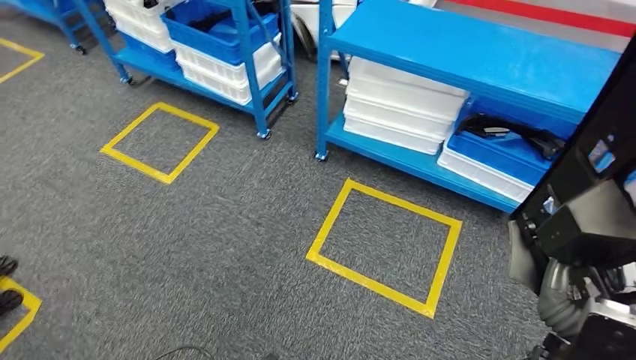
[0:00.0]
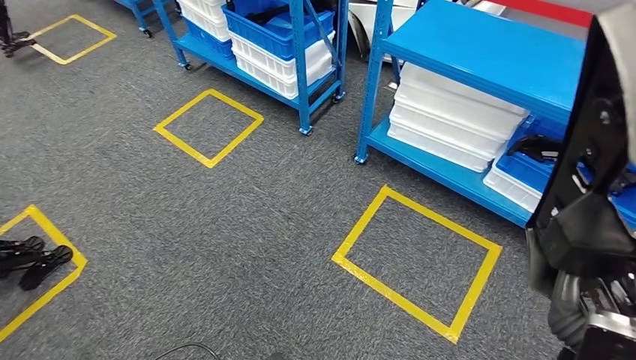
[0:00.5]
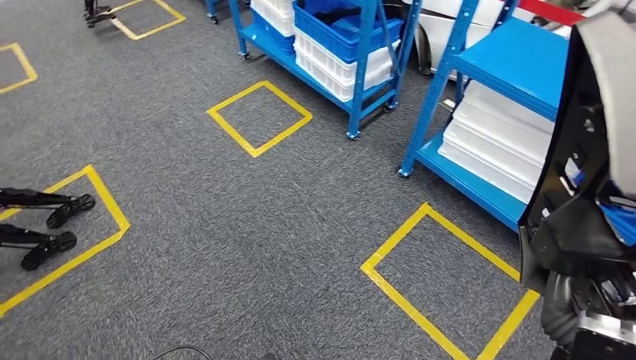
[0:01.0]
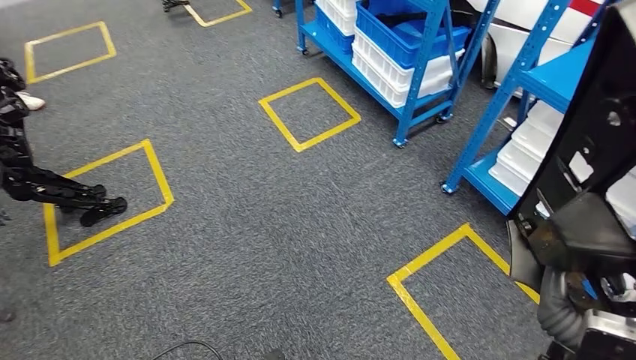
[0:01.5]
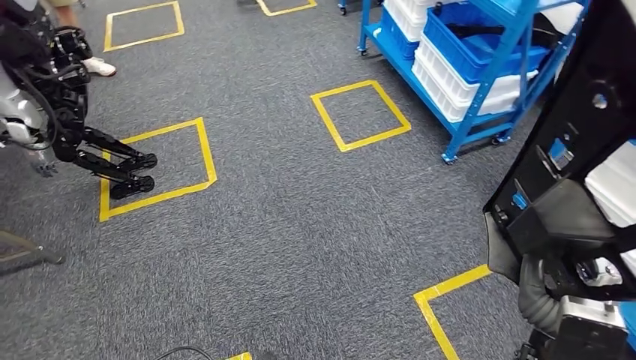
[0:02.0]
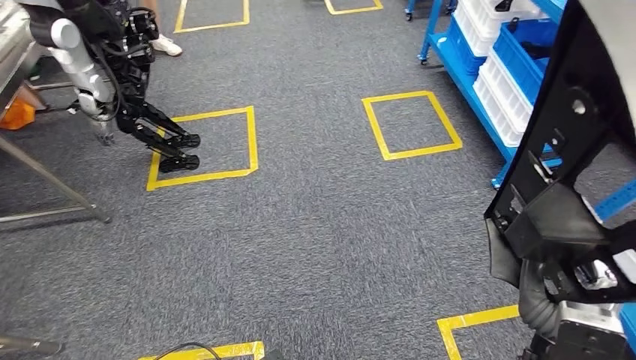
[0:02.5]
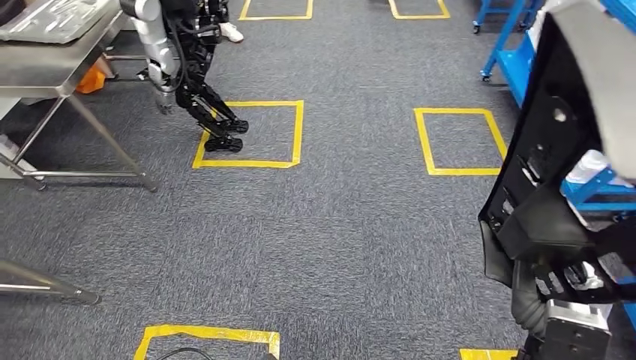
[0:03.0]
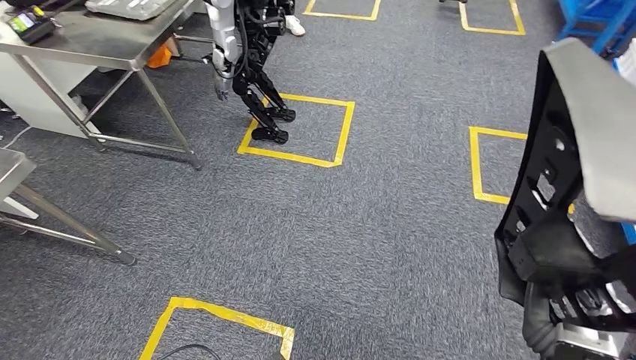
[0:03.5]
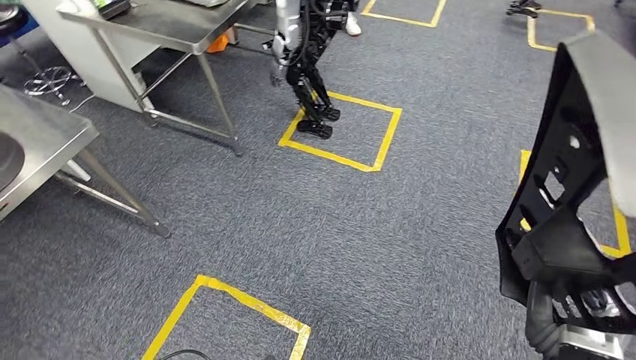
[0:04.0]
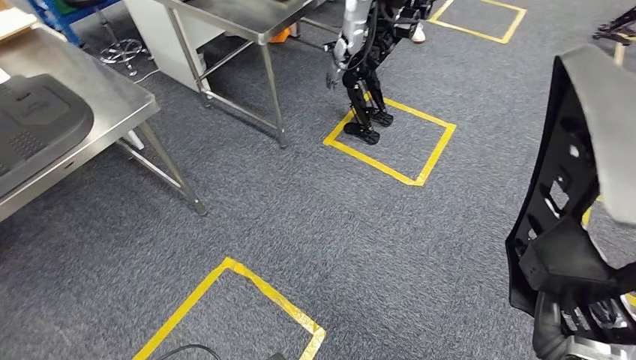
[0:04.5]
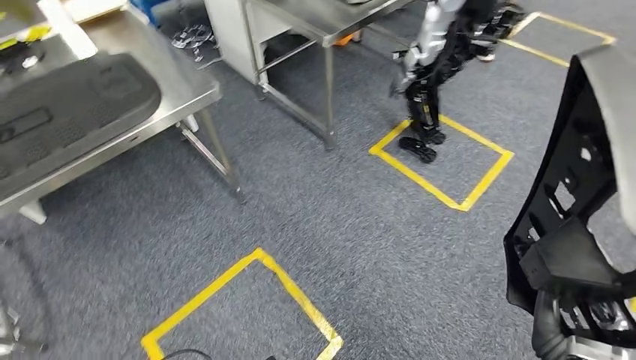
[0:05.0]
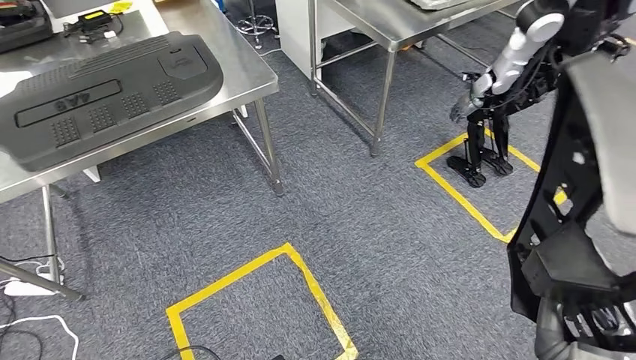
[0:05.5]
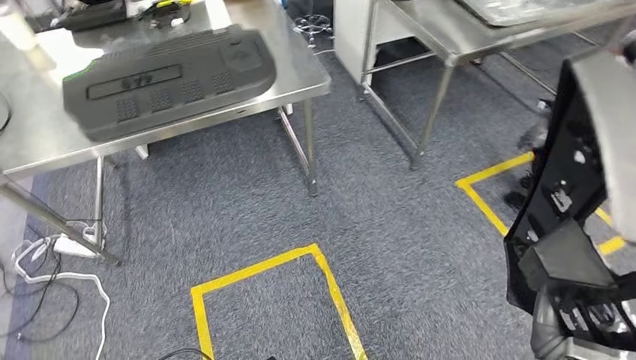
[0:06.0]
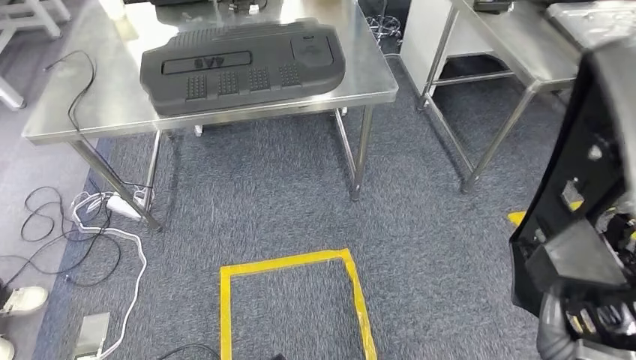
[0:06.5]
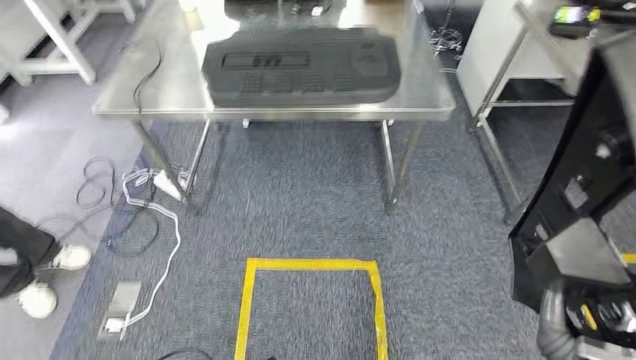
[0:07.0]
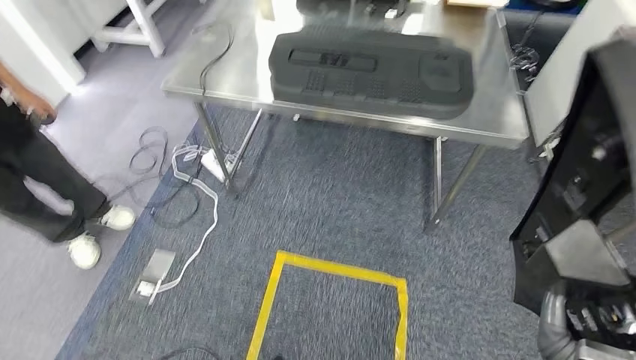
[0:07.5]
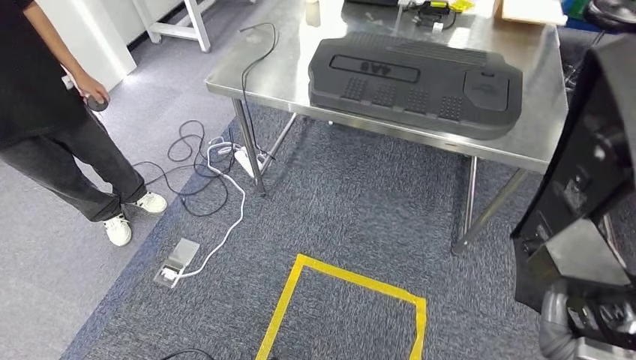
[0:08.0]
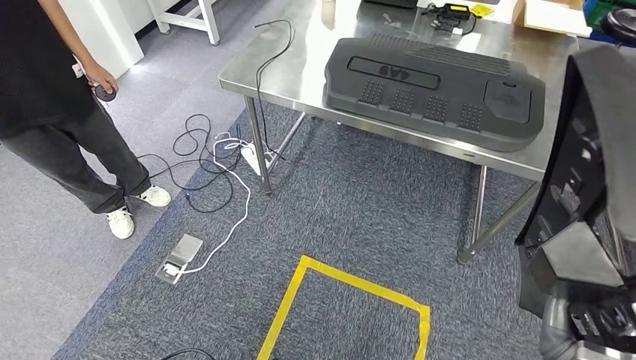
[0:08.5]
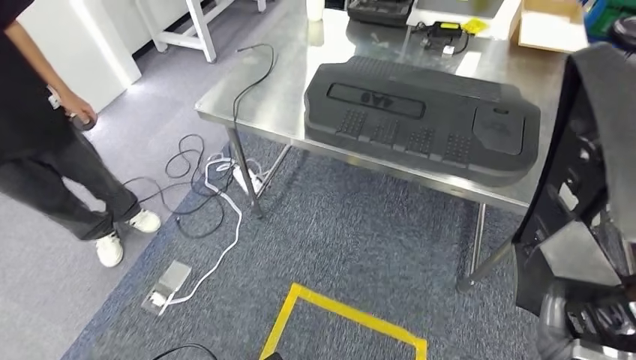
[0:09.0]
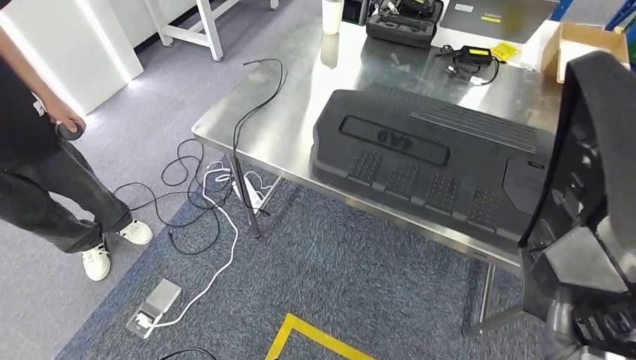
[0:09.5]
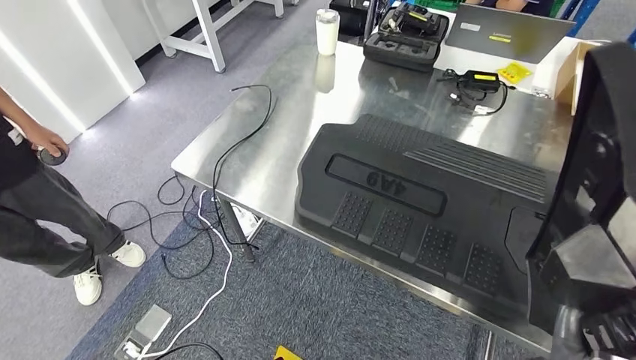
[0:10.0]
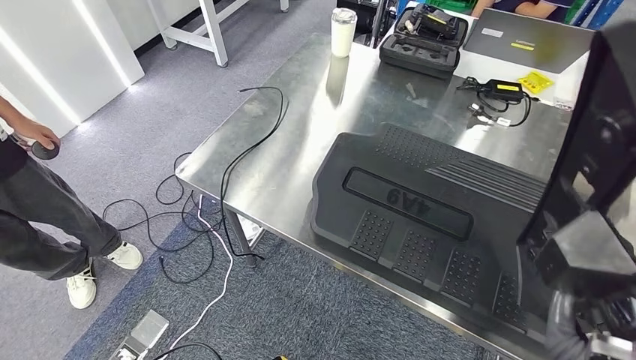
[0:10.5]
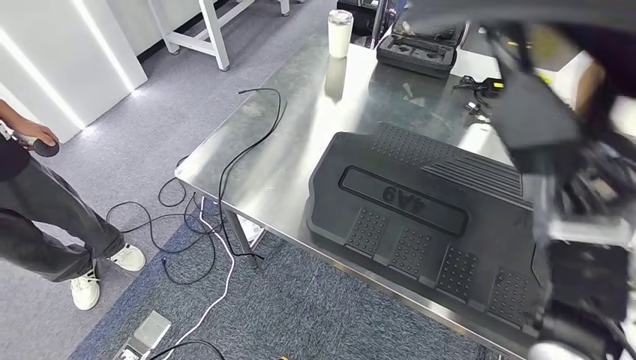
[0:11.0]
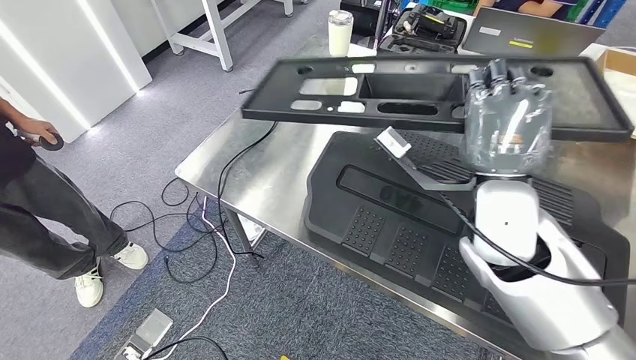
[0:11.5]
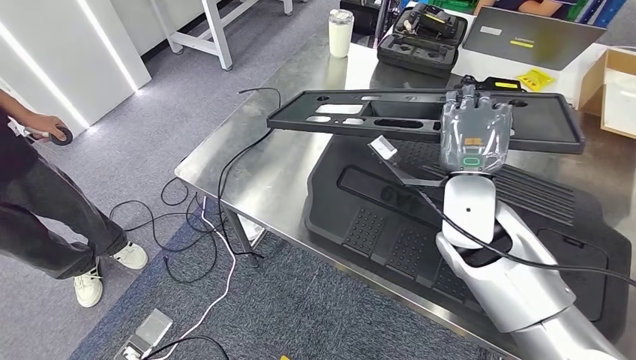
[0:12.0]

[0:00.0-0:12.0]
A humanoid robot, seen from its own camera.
Step, 0:00.0 to 0:09.5: Move the large material to the workbench.

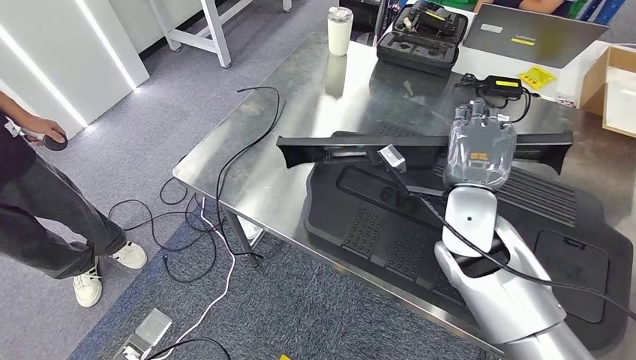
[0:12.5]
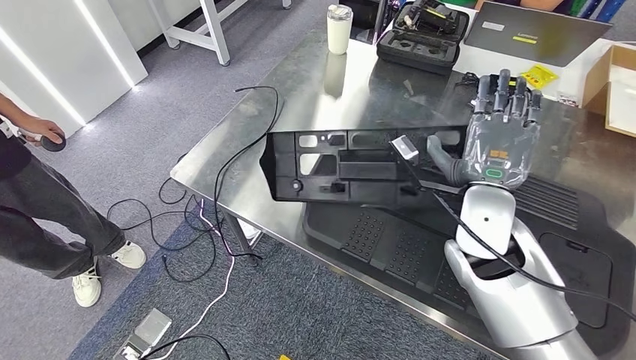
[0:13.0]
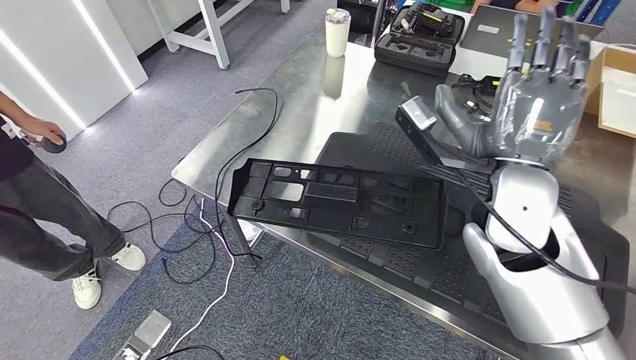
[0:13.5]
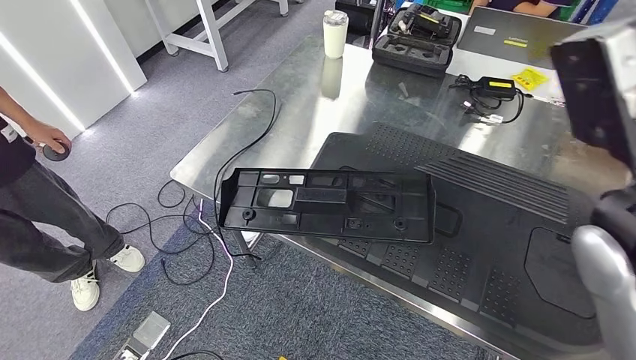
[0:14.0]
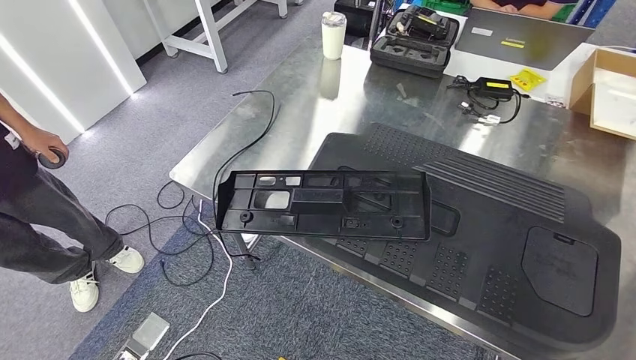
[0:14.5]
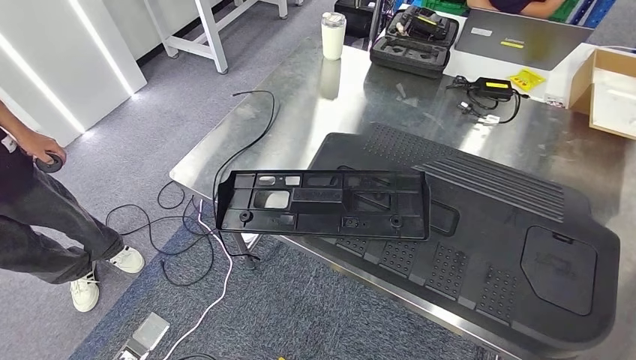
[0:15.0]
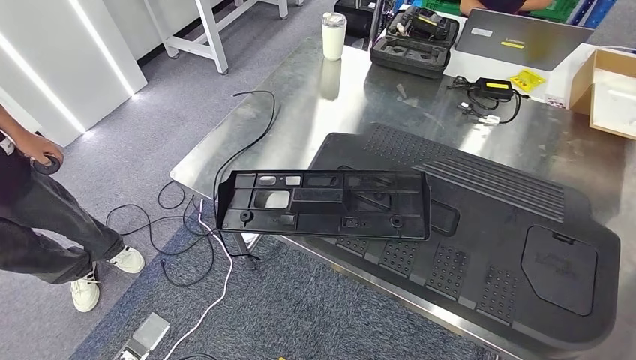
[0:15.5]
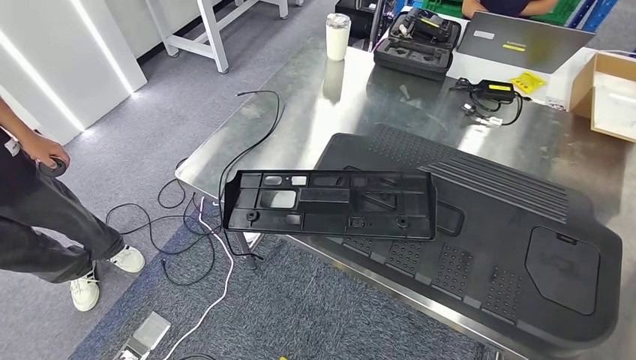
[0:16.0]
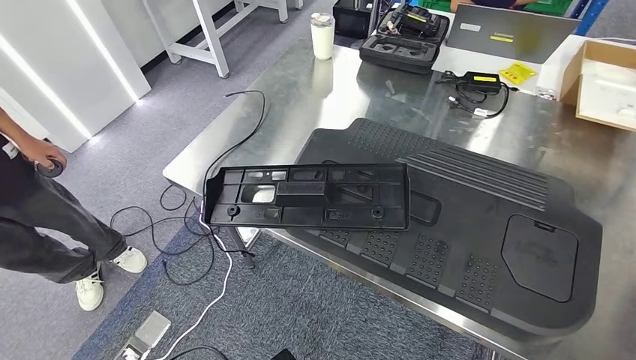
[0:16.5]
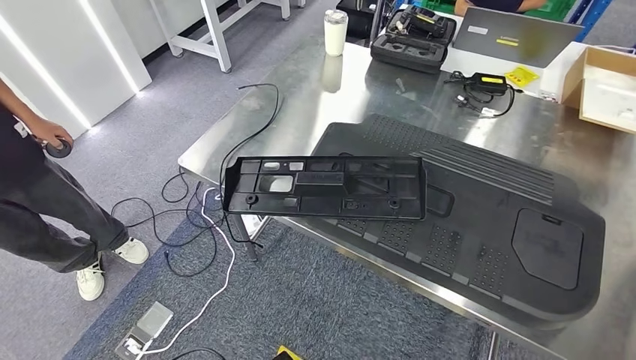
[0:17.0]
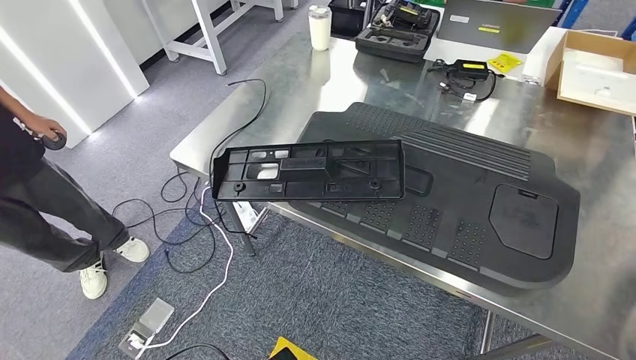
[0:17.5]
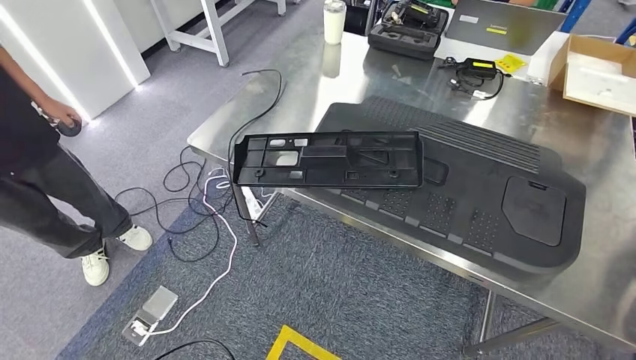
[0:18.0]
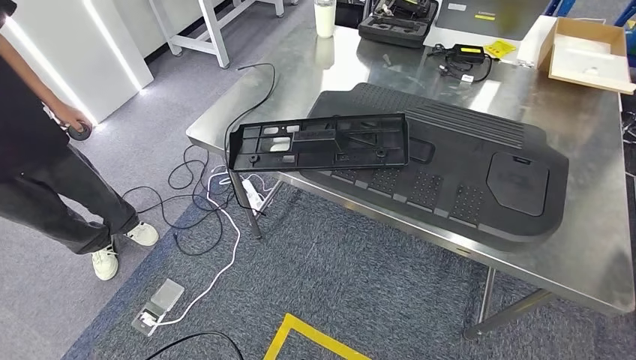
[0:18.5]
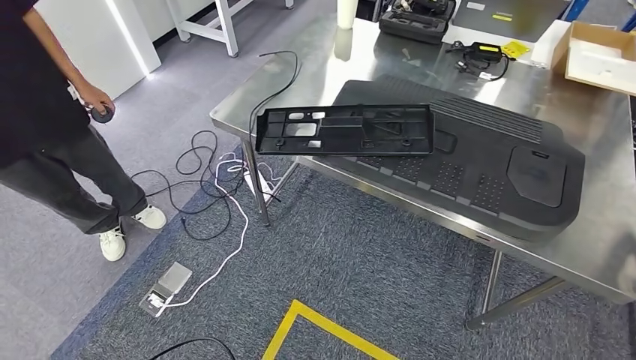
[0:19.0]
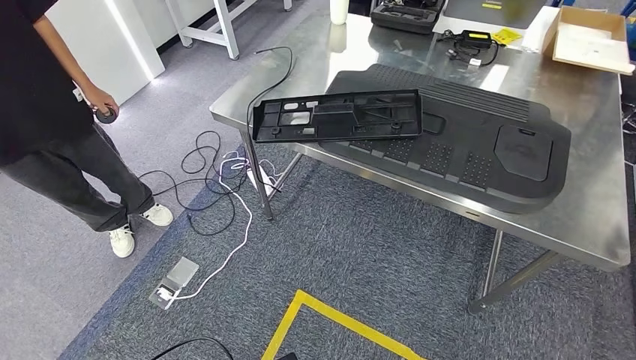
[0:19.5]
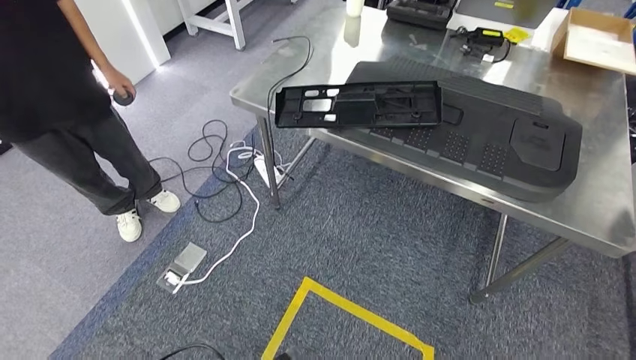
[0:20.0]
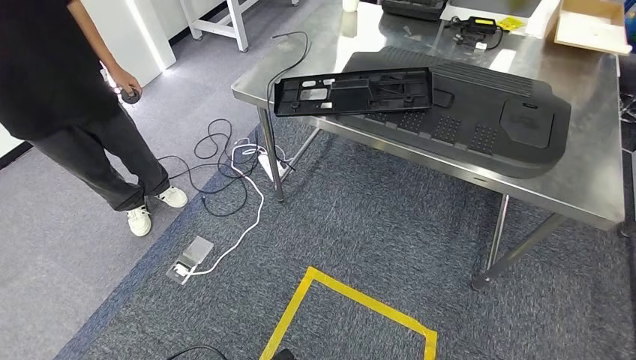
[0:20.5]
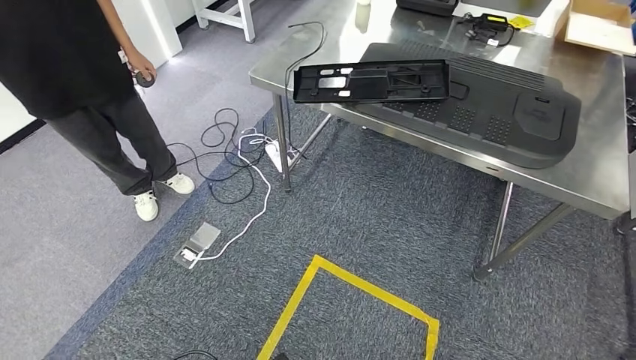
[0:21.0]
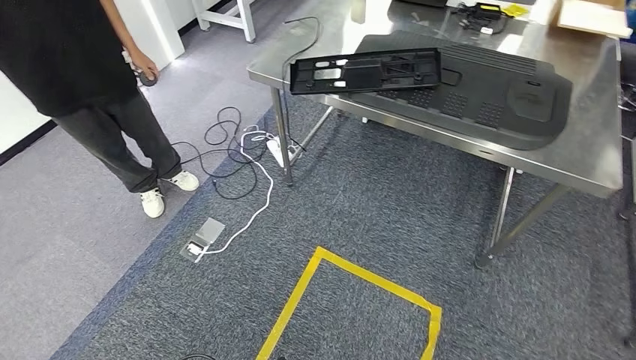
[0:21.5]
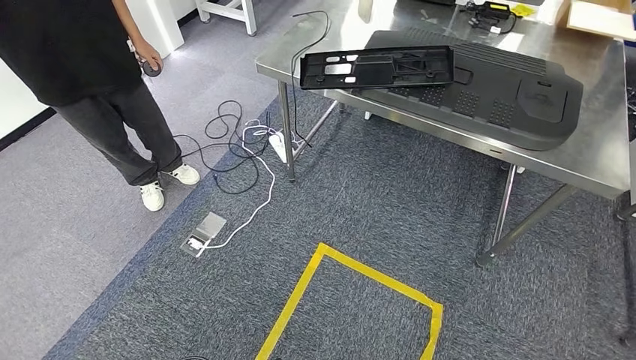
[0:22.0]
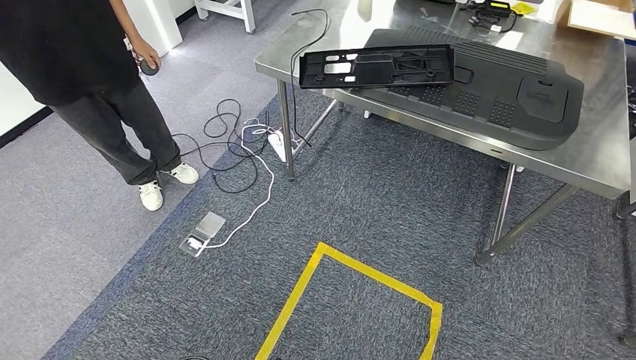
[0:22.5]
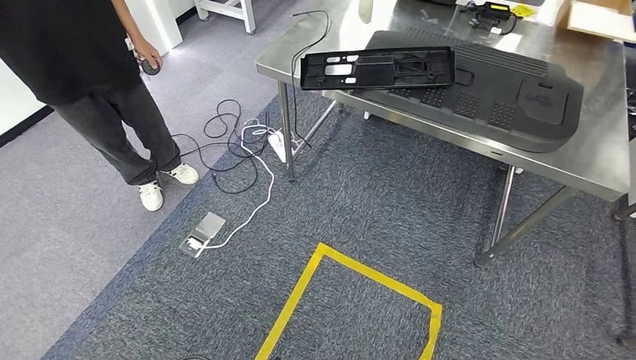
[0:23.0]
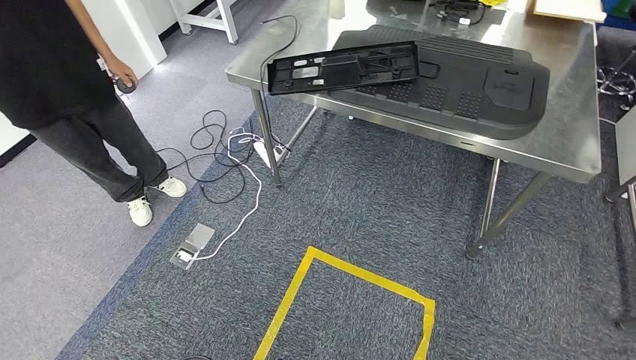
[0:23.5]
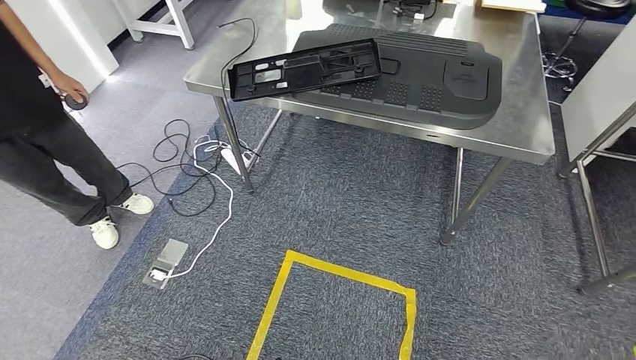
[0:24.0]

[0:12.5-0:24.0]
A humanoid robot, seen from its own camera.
Step, 0:12.5 to 0:18.5: Insert the large material into the corresponding slot on the workbench.
